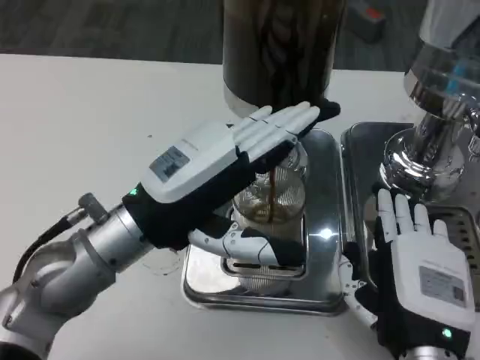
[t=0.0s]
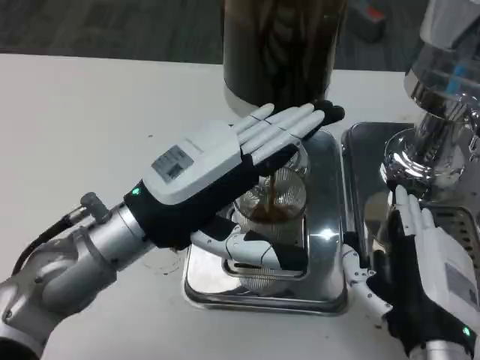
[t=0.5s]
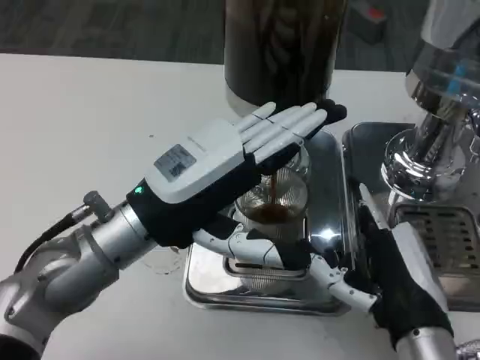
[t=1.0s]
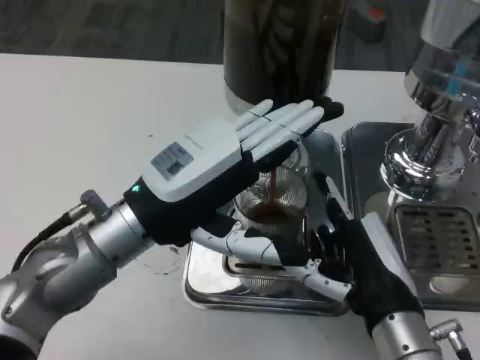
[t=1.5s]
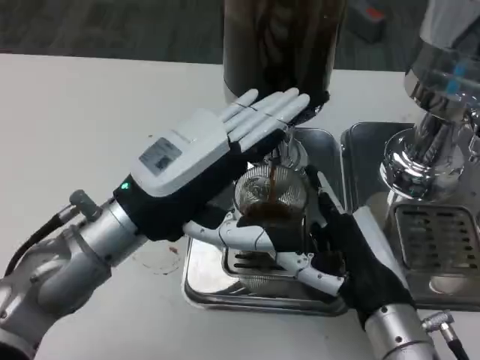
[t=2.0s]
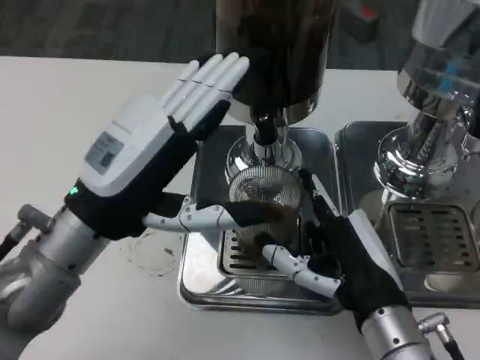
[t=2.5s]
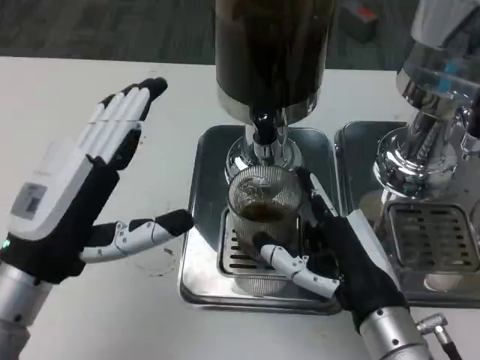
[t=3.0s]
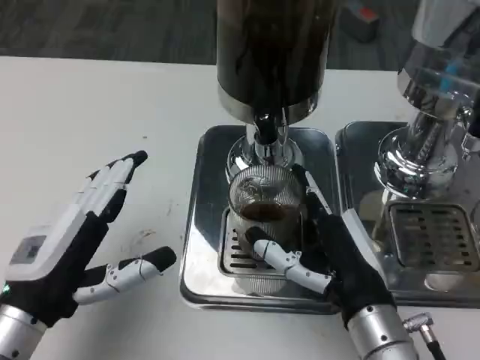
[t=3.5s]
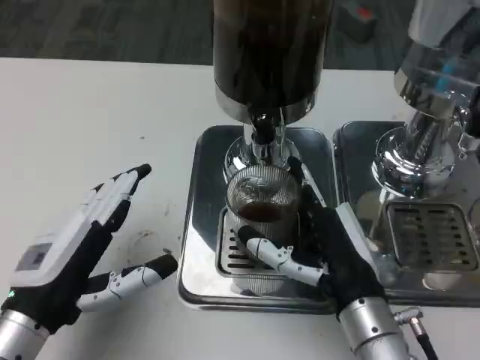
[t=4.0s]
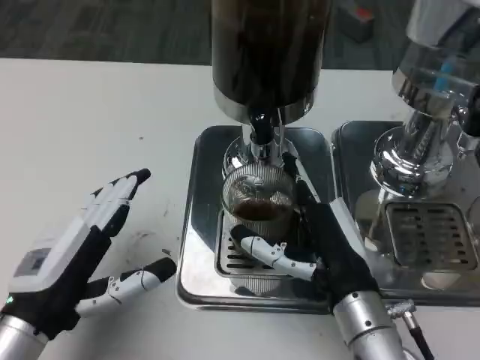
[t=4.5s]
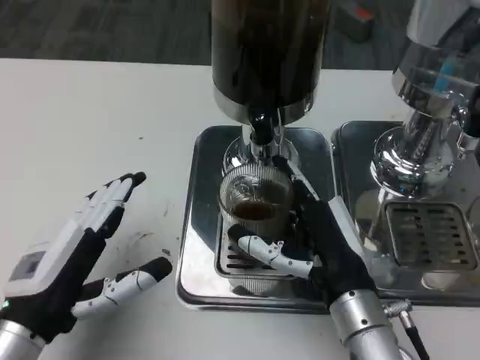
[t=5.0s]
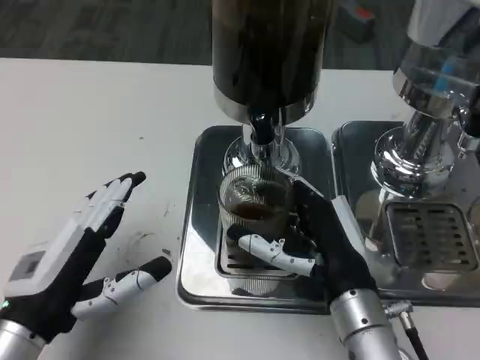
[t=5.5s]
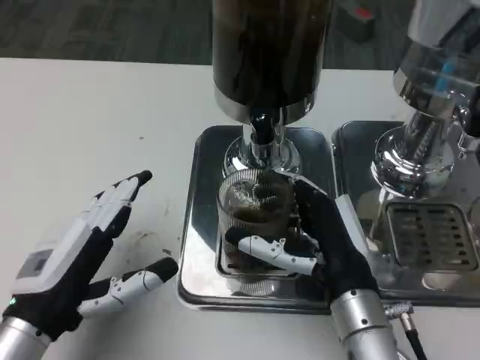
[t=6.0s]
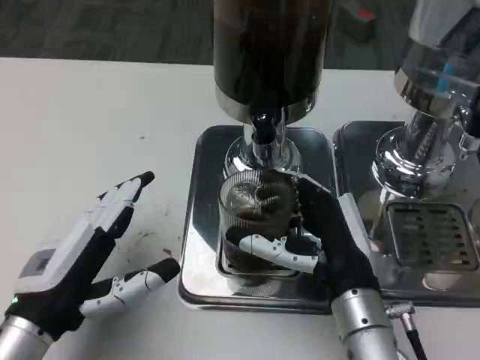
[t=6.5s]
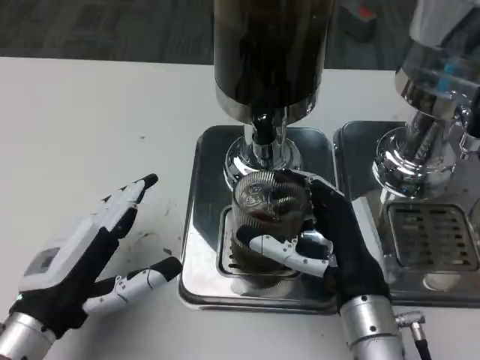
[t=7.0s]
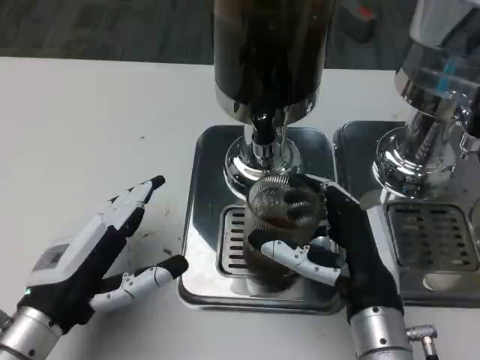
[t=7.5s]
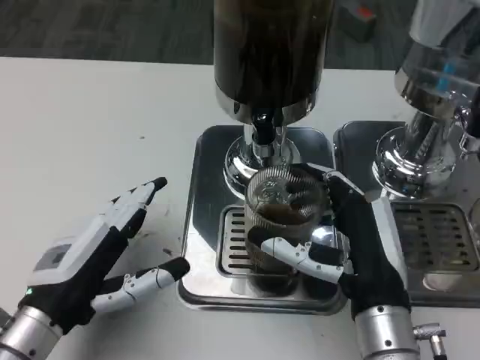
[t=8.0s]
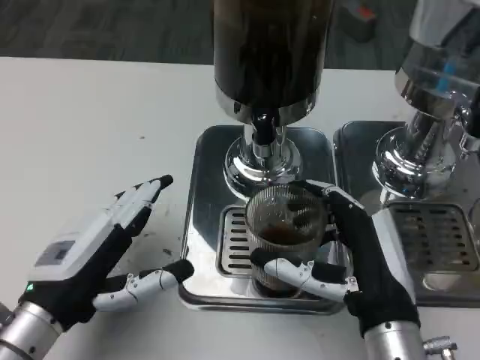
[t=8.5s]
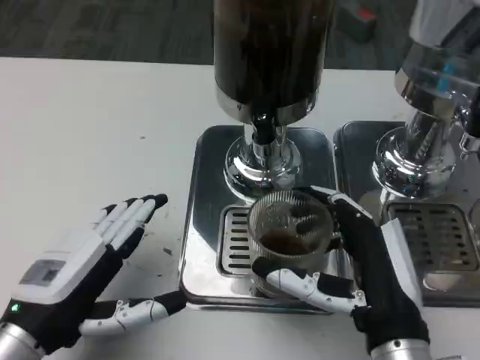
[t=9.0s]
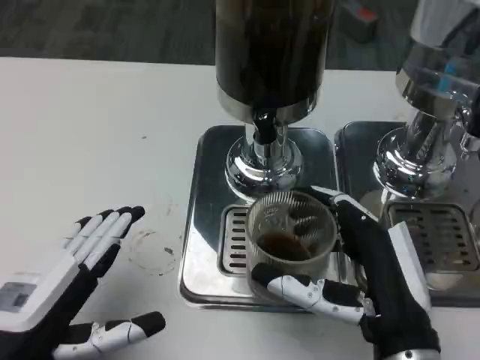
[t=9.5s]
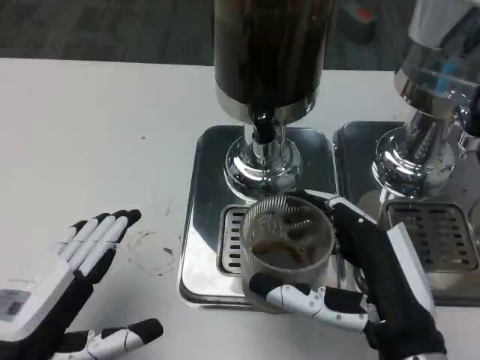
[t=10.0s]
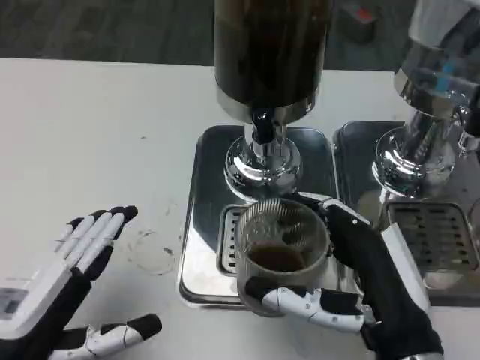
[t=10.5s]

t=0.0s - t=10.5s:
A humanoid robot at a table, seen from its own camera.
Task of the whole recording: Grasp the cup under the faucet to collect the drink, then remove the cup.
t=2.0s - t=4.0s: The left hand moves backward, to the left and downward, approximately 15 cm.
t=4.0s - t=8.5s: The hands move only a little.
t=8.5s - t=10.5s: The left hand shifts approximately 5 cm backward.

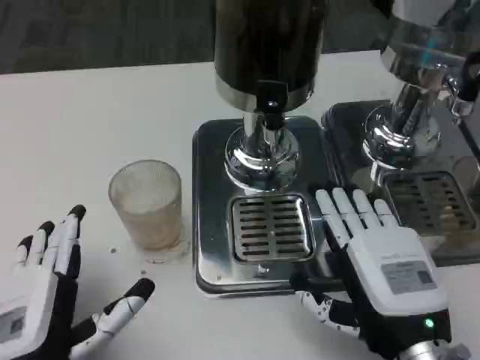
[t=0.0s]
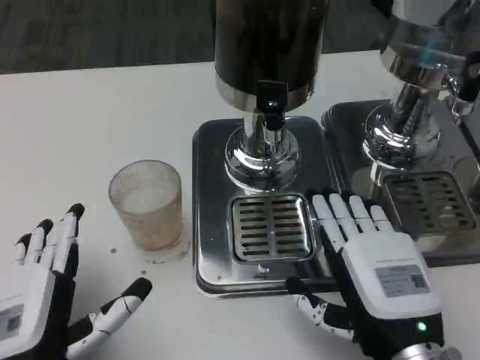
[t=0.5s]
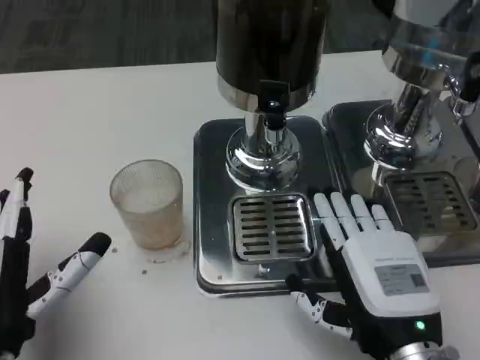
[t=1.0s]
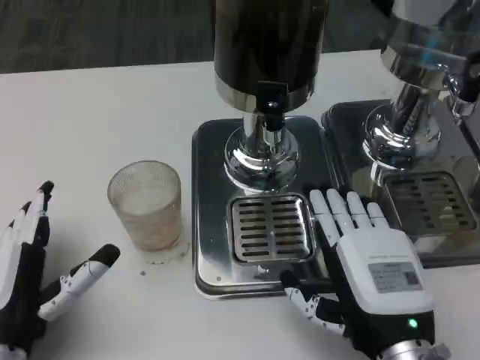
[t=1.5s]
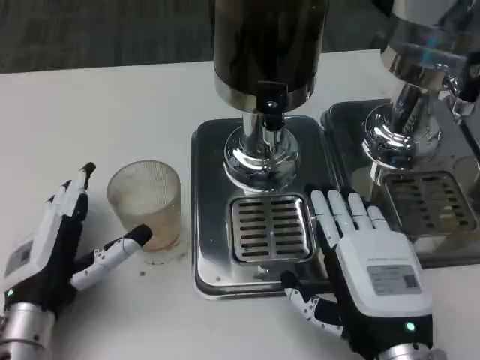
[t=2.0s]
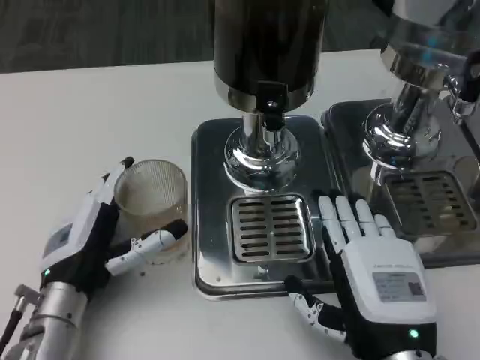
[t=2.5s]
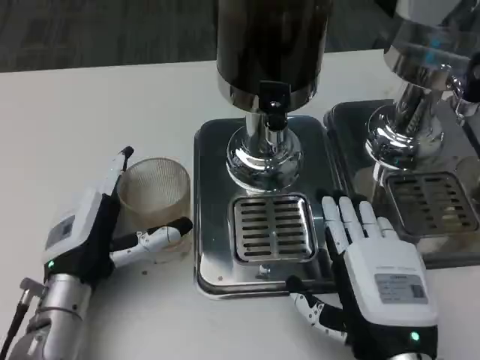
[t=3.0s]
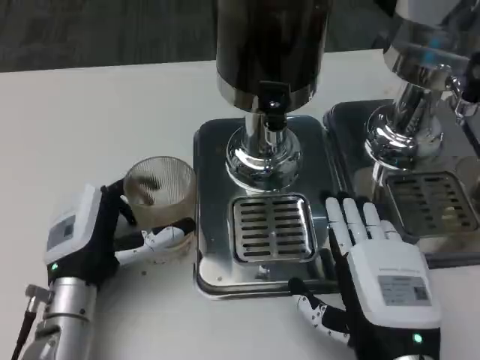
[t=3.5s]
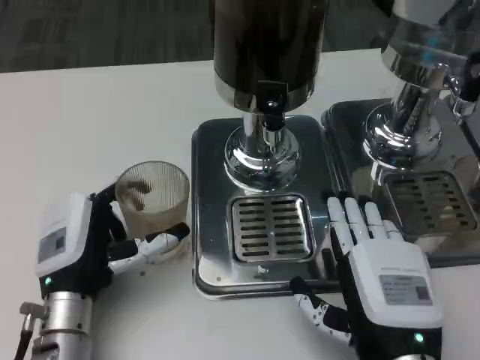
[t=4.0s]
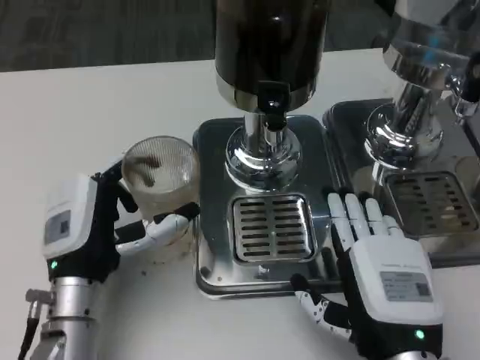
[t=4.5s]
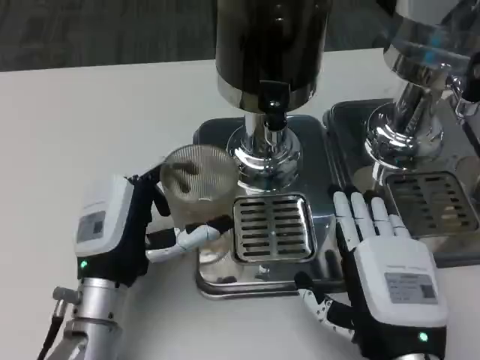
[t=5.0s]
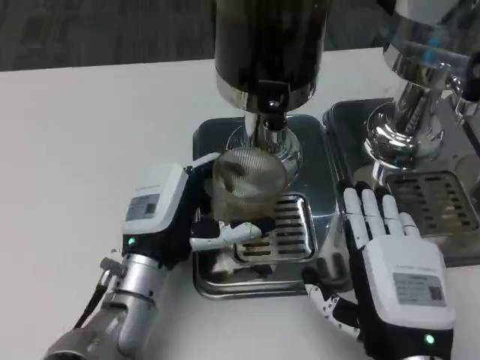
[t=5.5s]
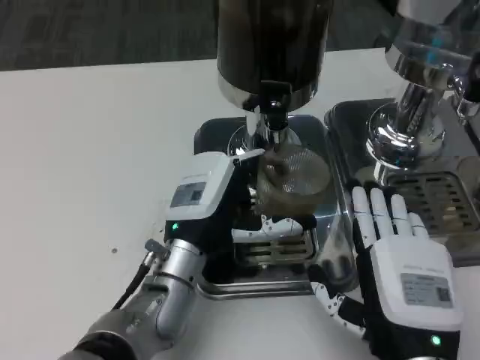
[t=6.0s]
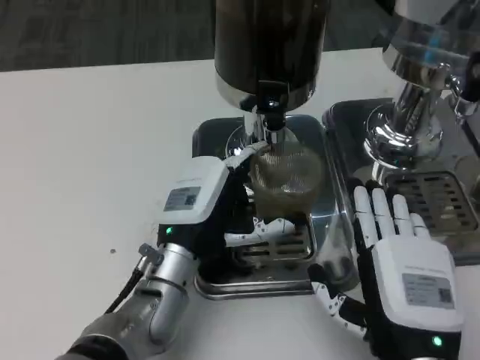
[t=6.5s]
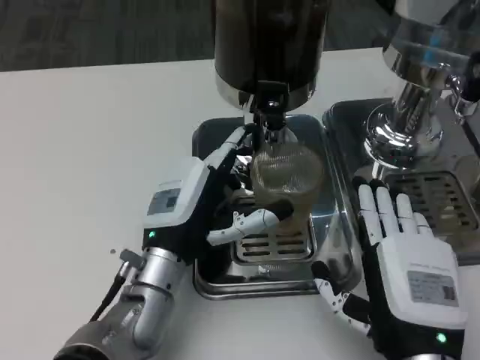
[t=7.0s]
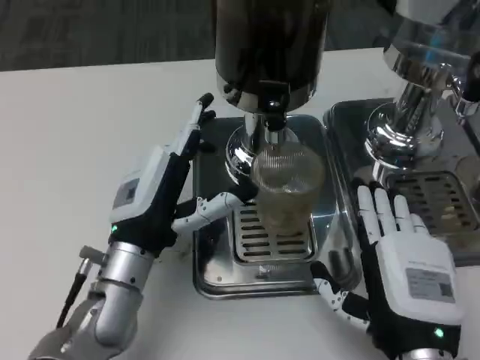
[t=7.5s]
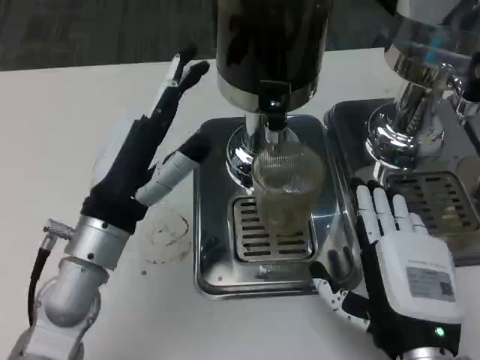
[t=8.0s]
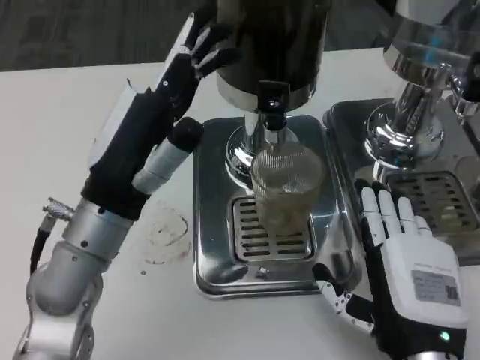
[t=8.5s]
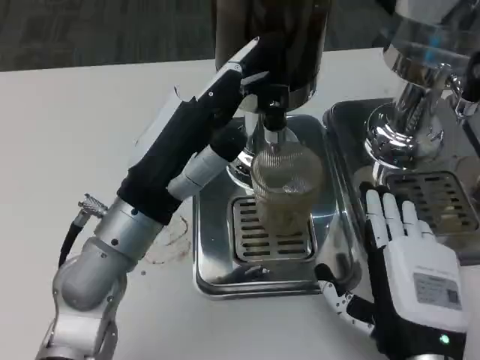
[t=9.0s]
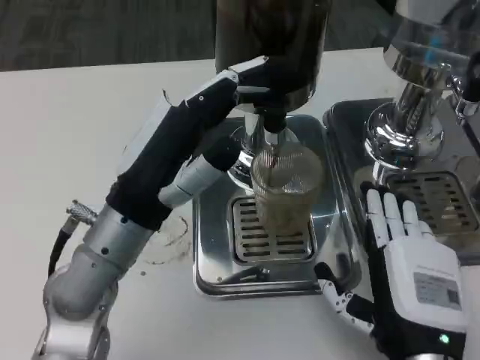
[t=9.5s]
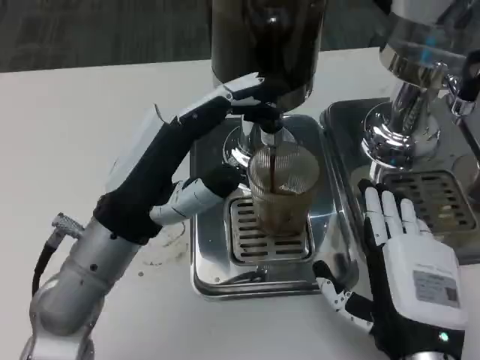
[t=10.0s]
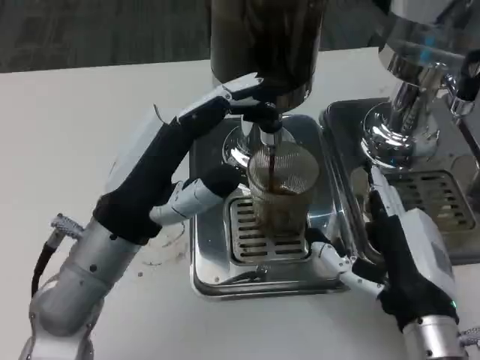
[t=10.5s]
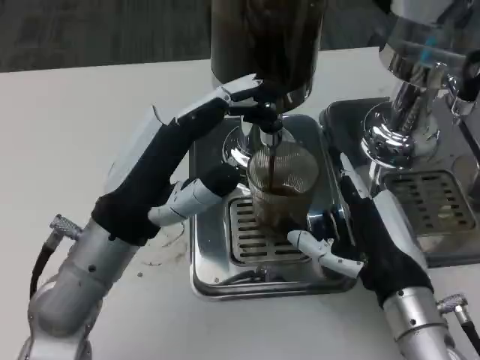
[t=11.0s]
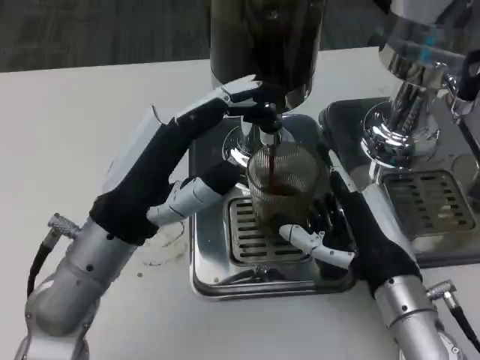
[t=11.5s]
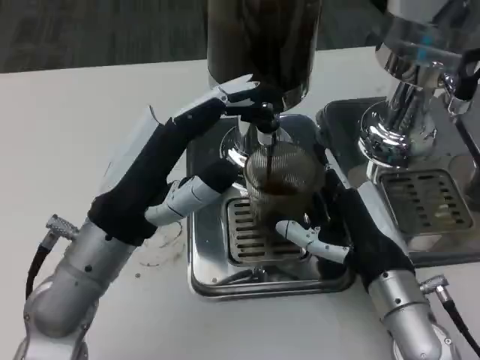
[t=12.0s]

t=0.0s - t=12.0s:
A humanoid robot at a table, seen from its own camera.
Task of the whole recording: Grasp the cup under the faucet to collect the drink, then remove the cup.
t=0.0s - t=2.0s: The left hand heads forward, covering roughly 10 cm.
t=2.0s - t=4.0s: The hands stay close to where they were, moving slightly.
t=4.0s - t=6.0s: The left hand heads to the right, covering roughly 10 cm.
t=6.0s - t=8.0s: The left hand travels to the left and upward by about 10 cm.
t=10.0s - t=12.0s: The right hand shifts about 10 cm forward.

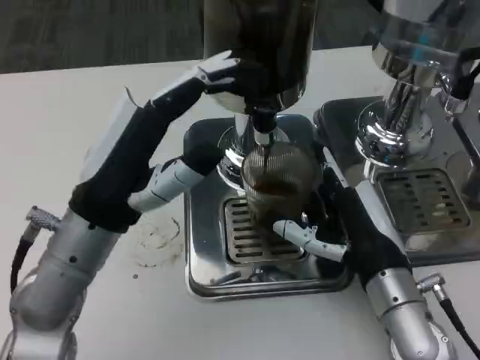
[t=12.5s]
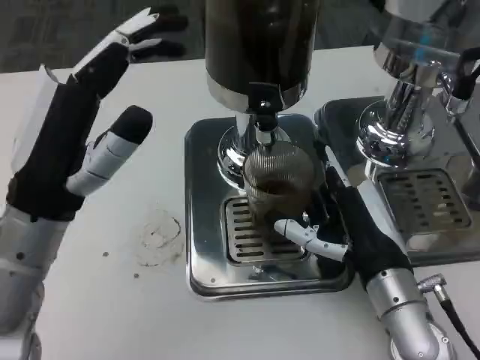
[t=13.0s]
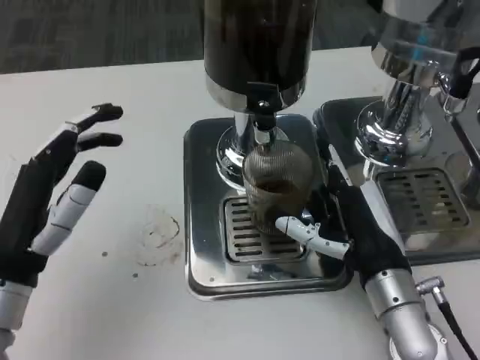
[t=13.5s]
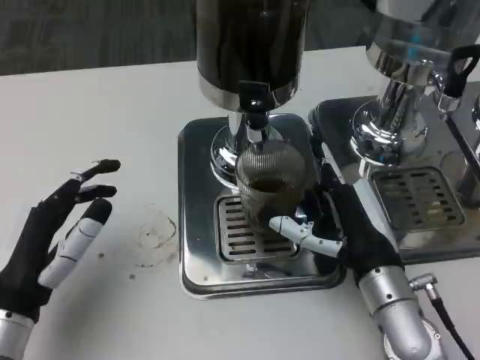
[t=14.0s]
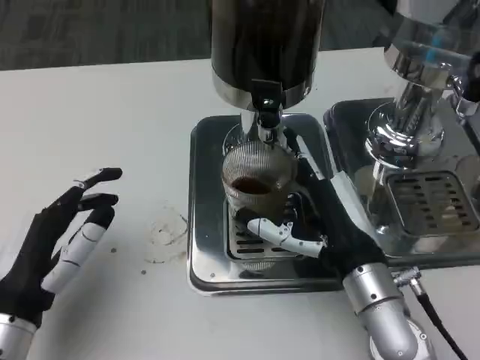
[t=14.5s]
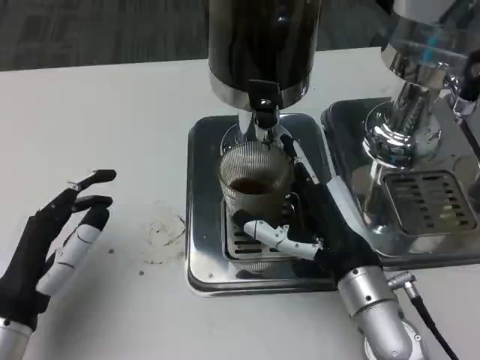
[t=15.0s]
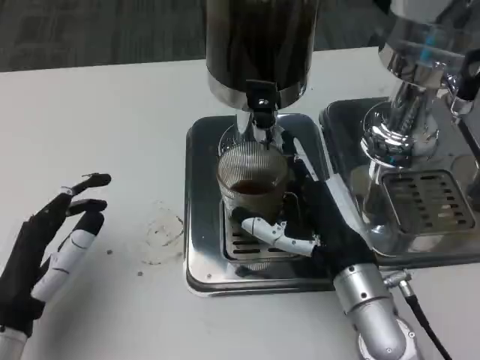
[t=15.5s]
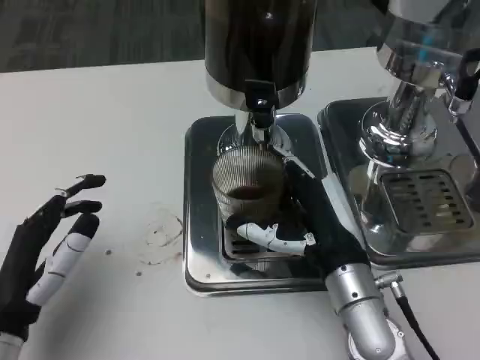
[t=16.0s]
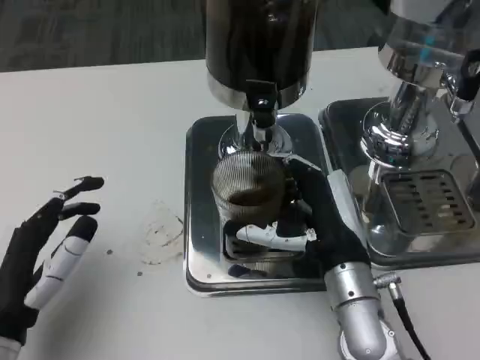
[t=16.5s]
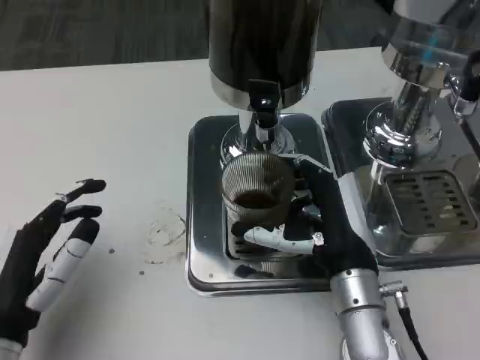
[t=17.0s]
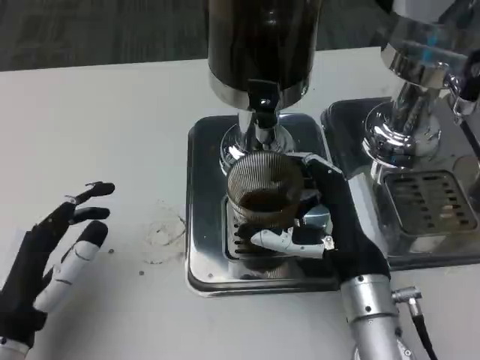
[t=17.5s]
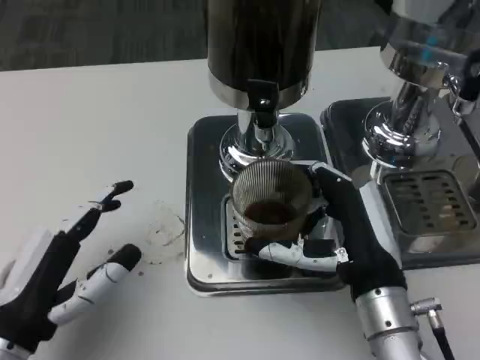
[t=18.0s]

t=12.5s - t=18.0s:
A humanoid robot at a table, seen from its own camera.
Task of the whole recording: Grasp the cup under the faucet to collect the drink, then remove the cup.
t=12.5s - t=14.5s: The left hand shifts roughly 15 cm downward, to the left and backward.
